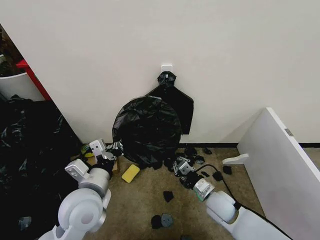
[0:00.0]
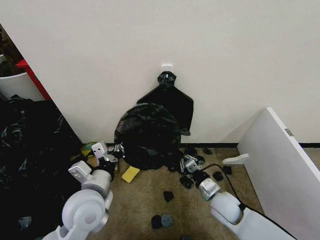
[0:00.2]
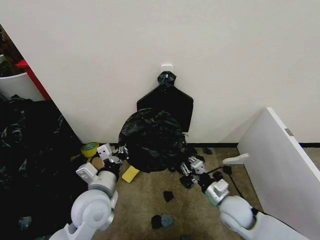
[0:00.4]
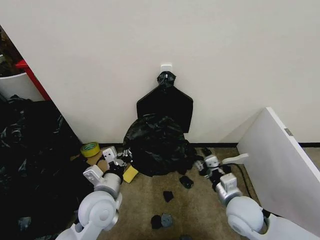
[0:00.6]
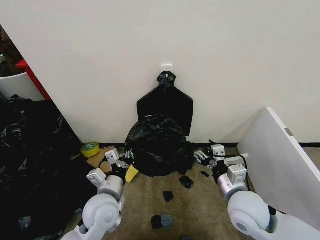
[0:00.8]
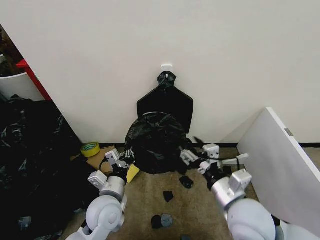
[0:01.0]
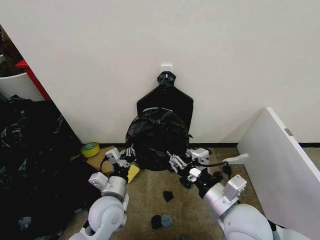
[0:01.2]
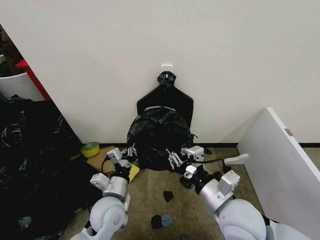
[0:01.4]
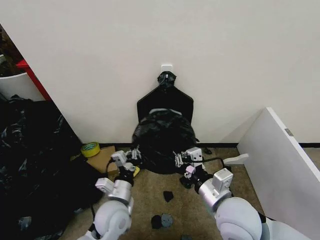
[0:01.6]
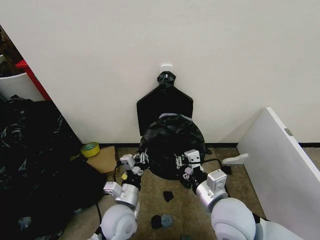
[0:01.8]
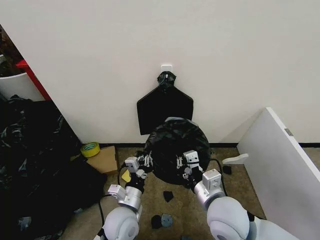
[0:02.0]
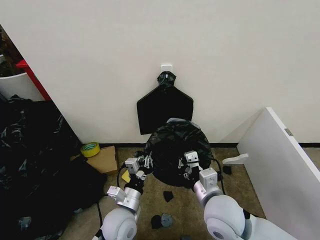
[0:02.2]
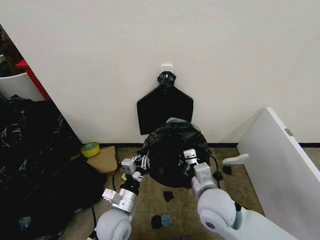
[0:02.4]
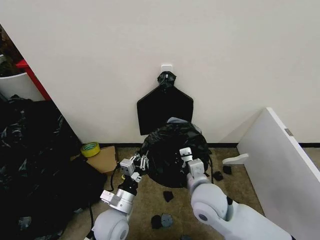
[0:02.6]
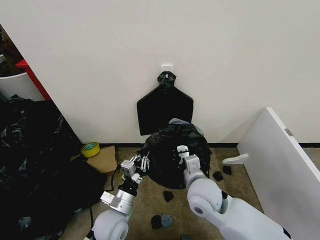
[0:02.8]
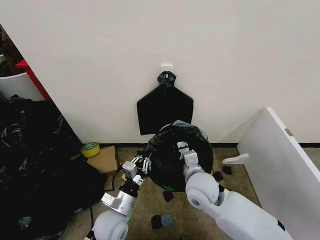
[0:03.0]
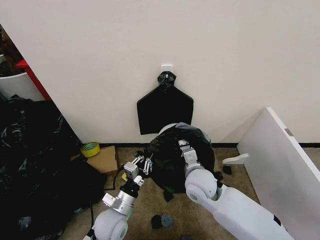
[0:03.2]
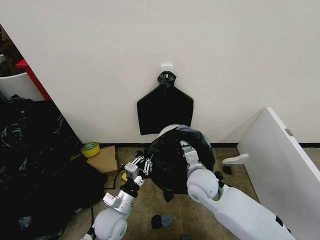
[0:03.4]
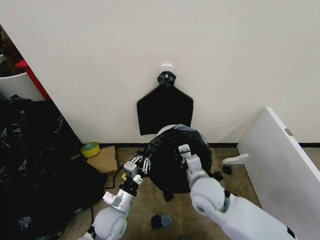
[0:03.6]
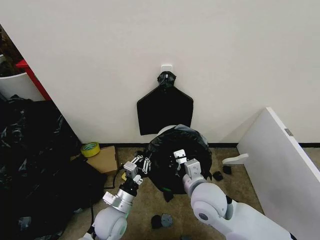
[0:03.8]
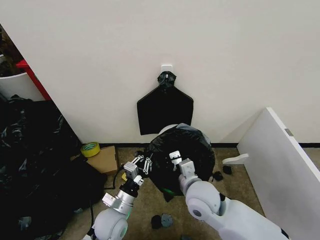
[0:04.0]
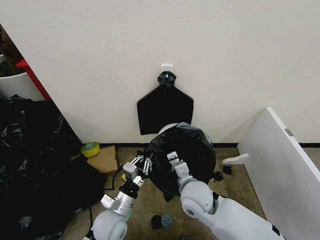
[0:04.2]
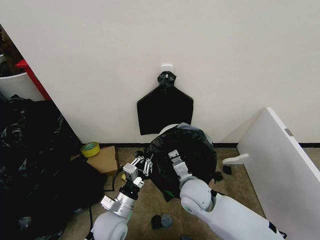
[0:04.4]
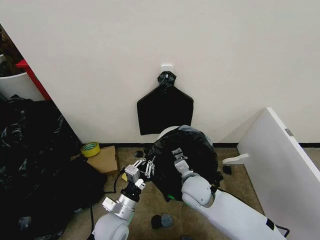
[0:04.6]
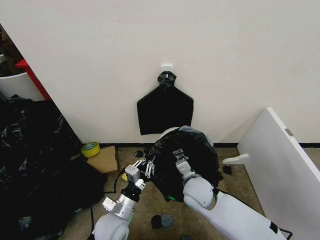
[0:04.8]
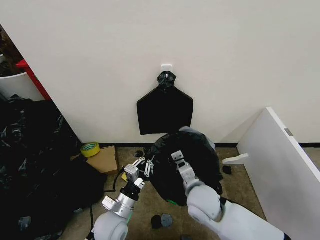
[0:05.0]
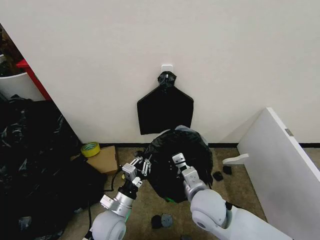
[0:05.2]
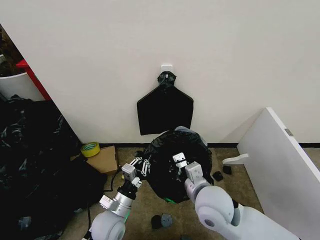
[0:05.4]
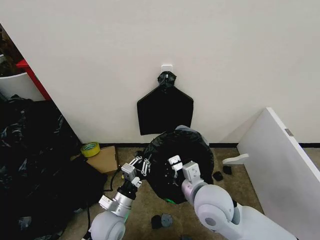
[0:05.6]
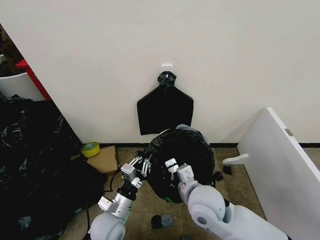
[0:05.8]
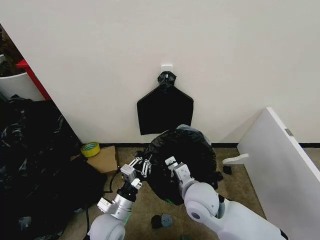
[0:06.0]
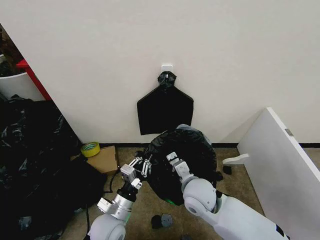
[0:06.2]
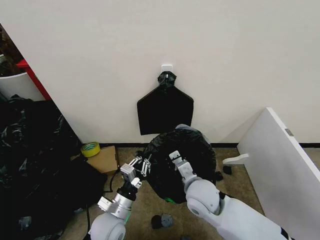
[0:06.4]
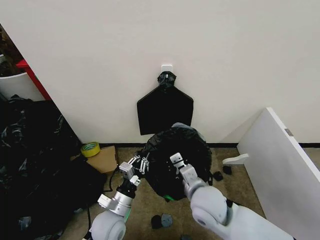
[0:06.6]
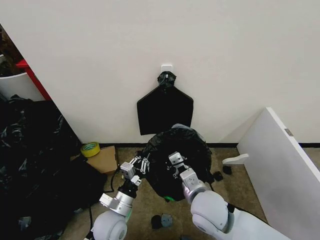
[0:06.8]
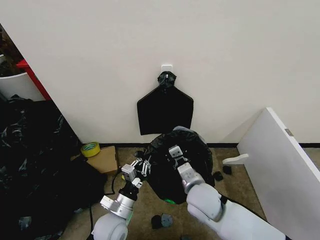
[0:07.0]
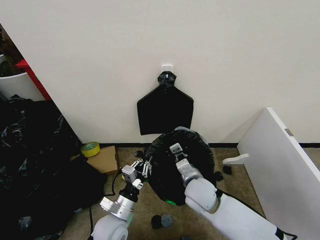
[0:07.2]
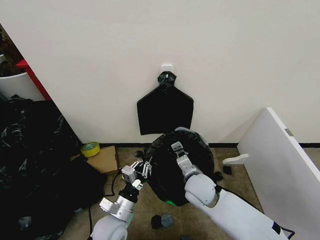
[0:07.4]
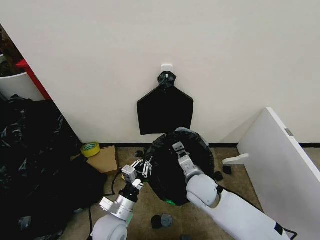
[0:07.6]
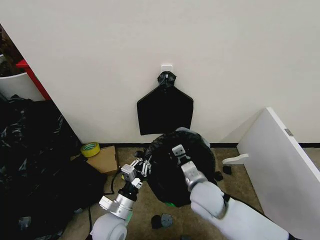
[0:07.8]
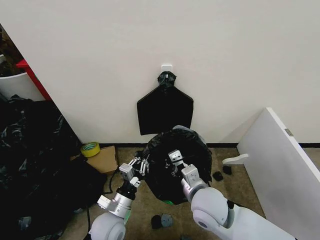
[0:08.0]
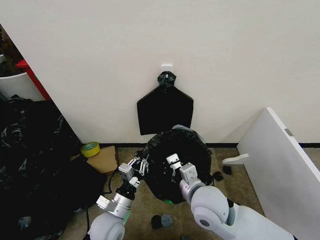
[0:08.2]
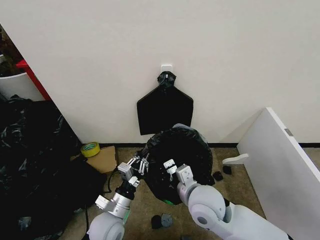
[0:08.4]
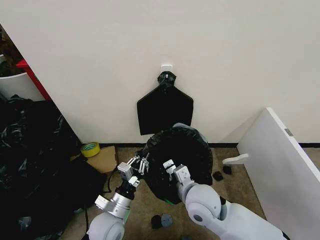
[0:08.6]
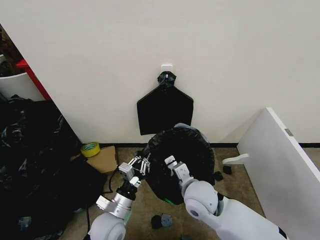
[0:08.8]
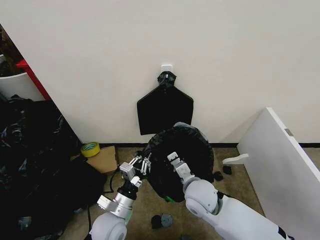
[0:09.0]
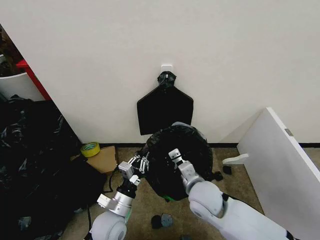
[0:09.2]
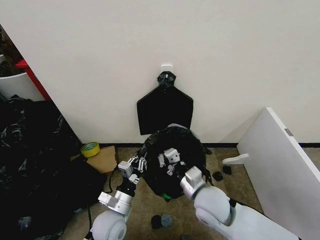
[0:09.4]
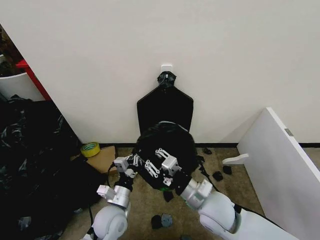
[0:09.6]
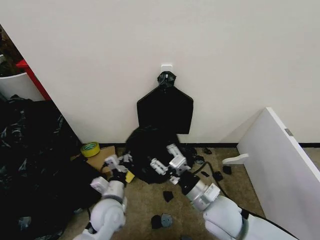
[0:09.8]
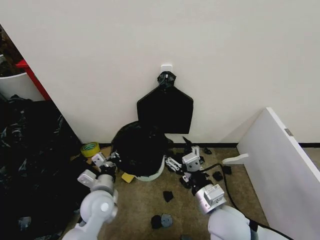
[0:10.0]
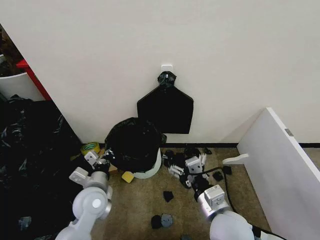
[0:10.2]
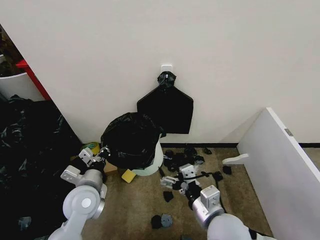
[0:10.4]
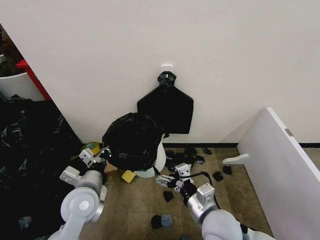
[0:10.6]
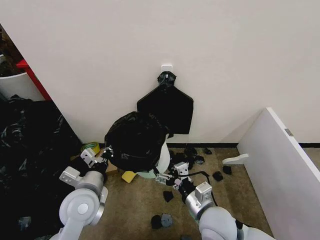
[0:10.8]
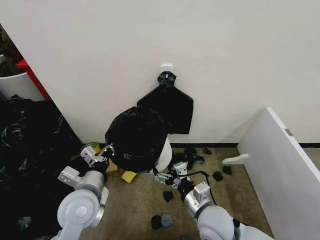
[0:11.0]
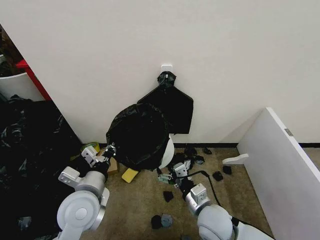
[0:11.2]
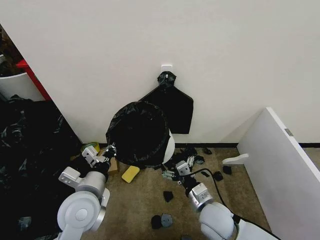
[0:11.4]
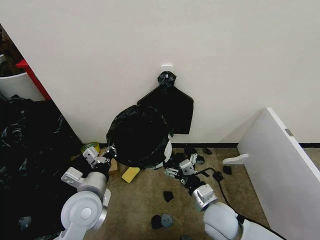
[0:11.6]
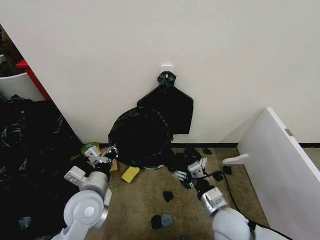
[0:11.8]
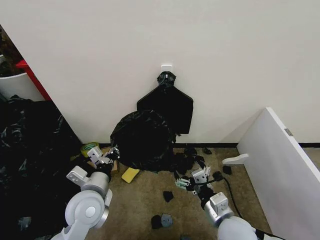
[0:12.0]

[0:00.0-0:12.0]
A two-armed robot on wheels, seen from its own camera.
Task of the whole recording: Place the garbage bag over the trash bin.
0:00.0 to 0:01.6: The left gripper goes roughly 10 cm downward; the right gripper moves upward and backward, roughly 20 cm, and opens, then closes once more.
0:01.6 to 0:03.0: The left gripper heads downward, covering approximately 5 cm, while the right gripper goes some 10 cm forward, to the left and downward.
0:03.0 to 0:04.4: The grippers make only small movements.
0:06.0 to 0:07.6: The right gripper moves some 5 cm.
0:09.0 to 0:10.4: The right gripper travels backward by approximately 10 cm, and opens. Meanwhile the left gripper travels upward, to the left and forward by approximately 10 cm.
0:10.4 to 0:12.0: The right gripper is displaced downward by roughly 5 cm.

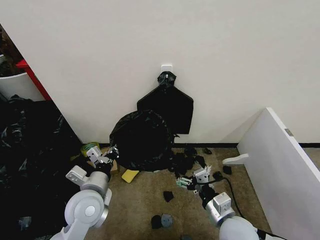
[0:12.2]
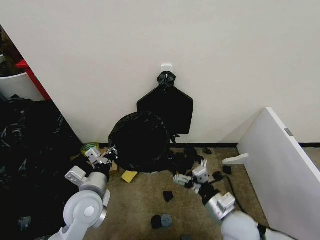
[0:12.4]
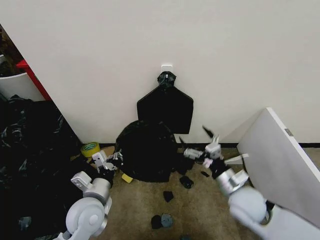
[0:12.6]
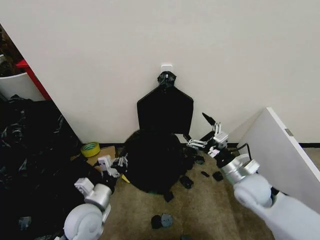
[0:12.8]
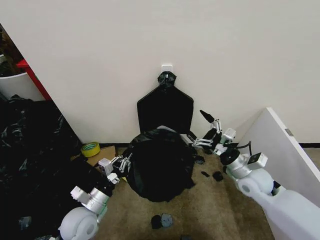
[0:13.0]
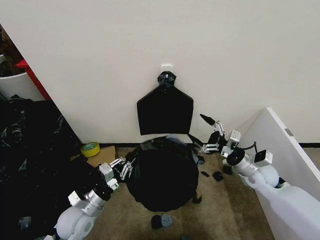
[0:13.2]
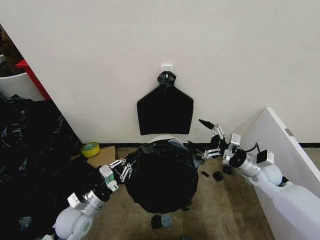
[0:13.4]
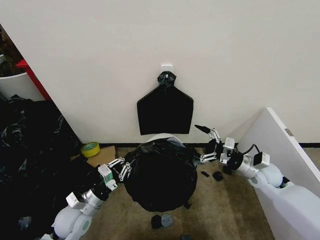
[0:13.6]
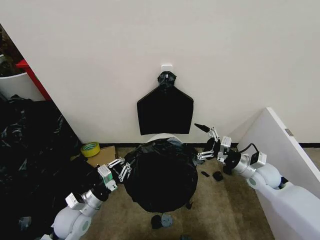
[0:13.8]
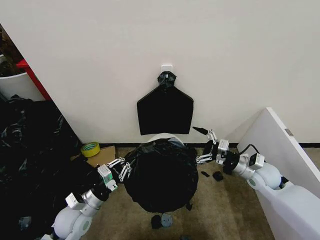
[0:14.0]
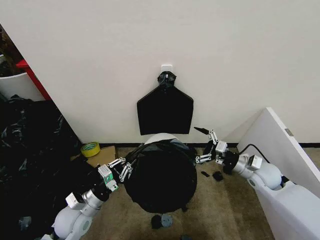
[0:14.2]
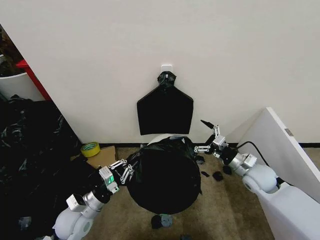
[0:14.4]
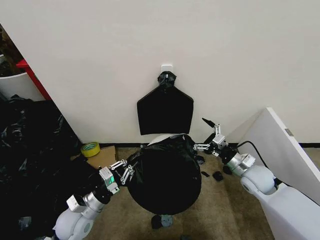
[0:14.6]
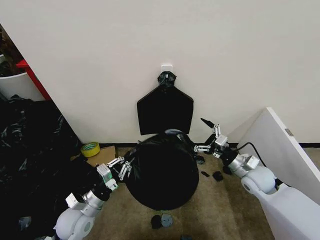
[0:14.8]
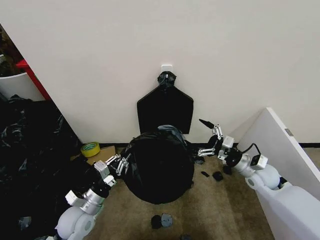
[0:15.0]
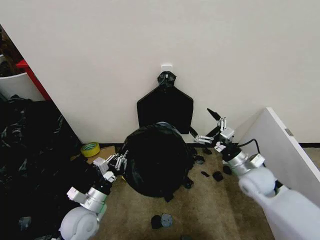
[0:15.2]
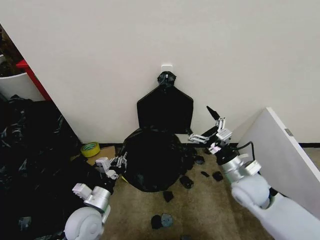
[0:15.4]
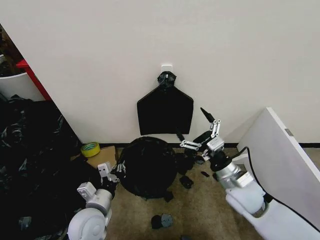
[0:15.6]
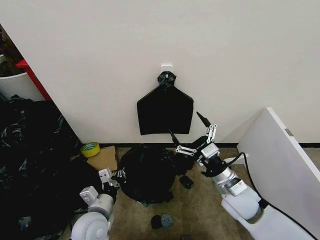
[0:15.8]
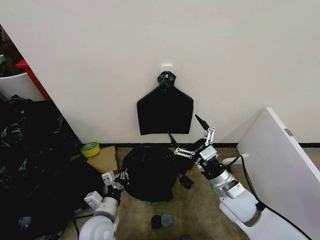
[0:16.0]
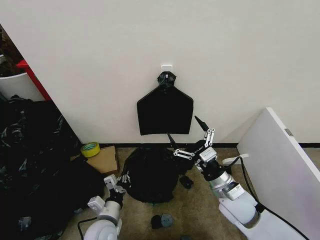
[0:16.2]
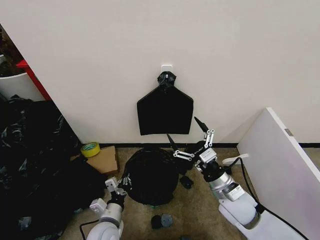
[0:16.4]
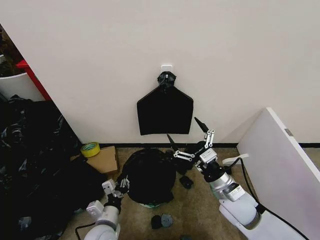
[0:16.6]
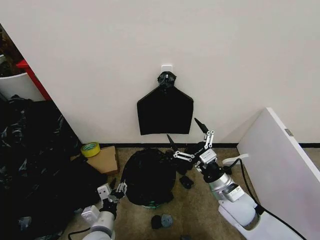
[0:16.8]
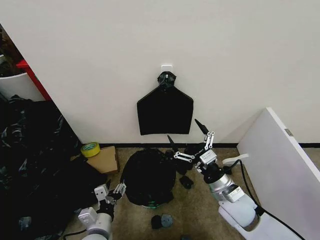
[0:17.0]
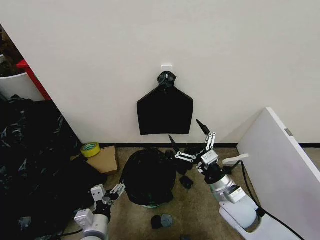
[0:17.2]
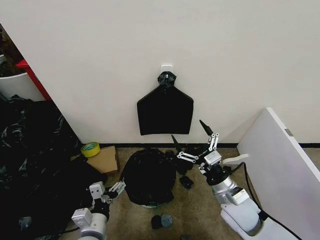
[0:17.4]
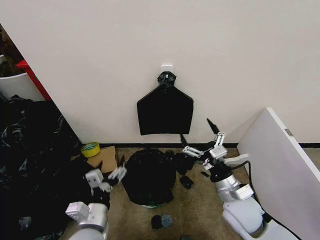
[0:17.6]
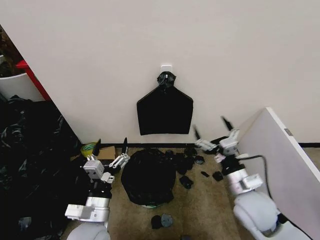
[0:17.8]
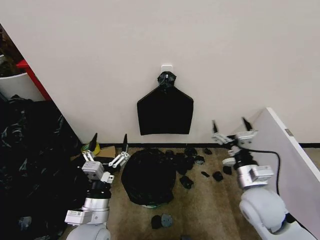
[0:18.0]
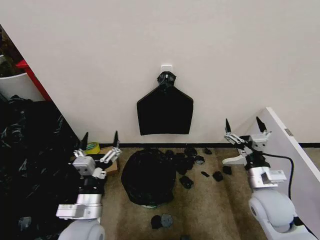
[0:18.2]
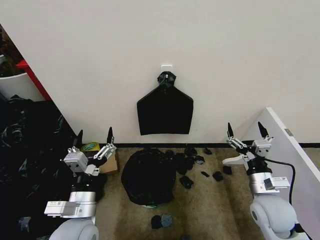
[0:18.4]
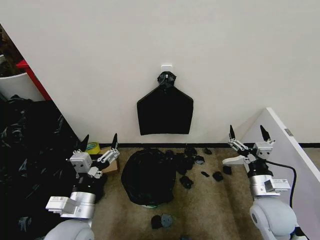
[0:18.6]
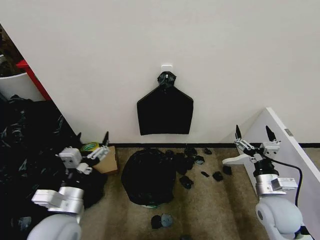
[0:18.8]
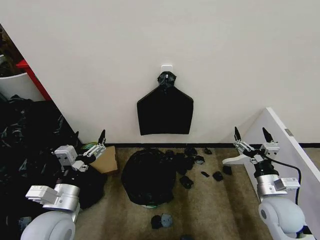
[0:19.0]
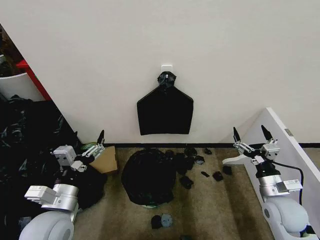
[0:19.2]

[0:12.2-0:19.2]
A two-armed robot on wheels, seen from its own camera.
Task of the whole recording: Place the garbage bag over the trash bin.
0:12.2 to 0:13.6: The left gripper travels downward and to the left by some 10 cm. Meanwhile the right gripper travels forward and to the right by some 25 cm.
0:15.0 to 0:16.4: The left gripper moves to the right and downward, approximately 10 cm, while the right gripper goes about 15 cm to the left and backward.
0:16.4 to 0:17.8: The left gripper moves upward, approximately 10 cm, and opens.
0:17.8 to 0:19.2: The right gripper travels to the right by roughly 10 cm; the left gripper shifts approximately 10 cm to the left and upward.
